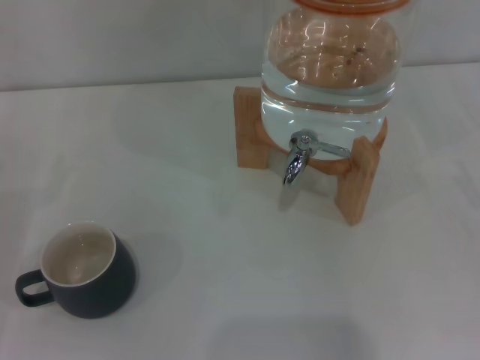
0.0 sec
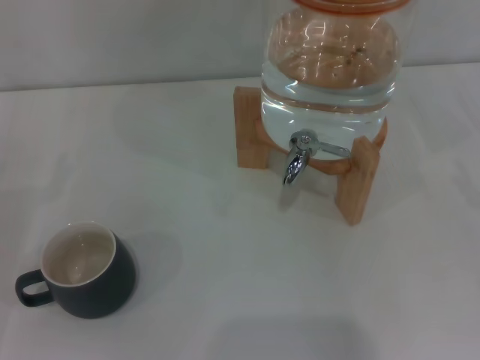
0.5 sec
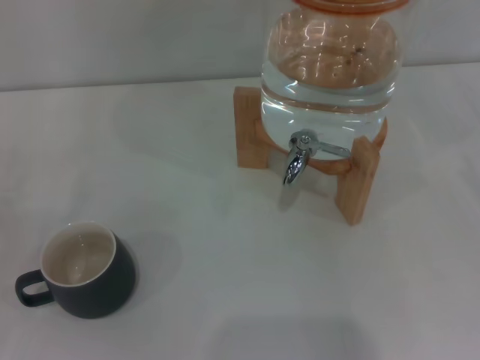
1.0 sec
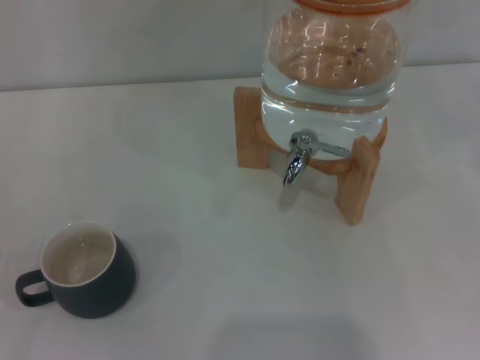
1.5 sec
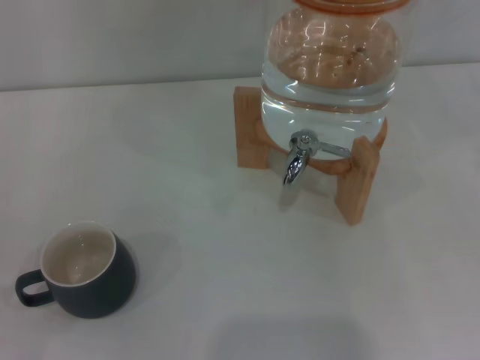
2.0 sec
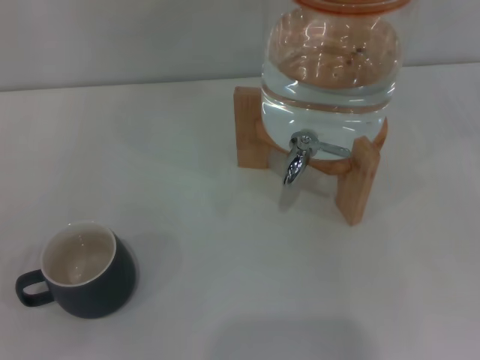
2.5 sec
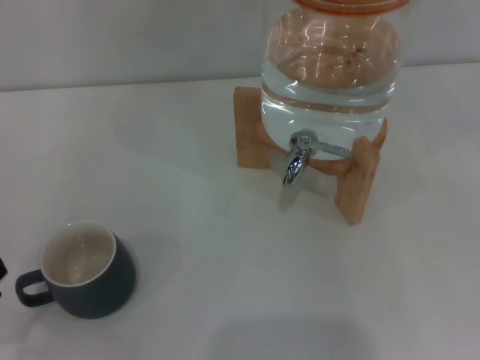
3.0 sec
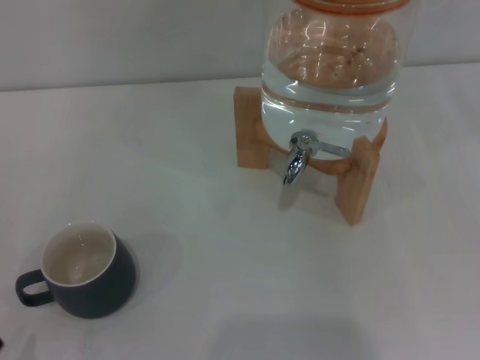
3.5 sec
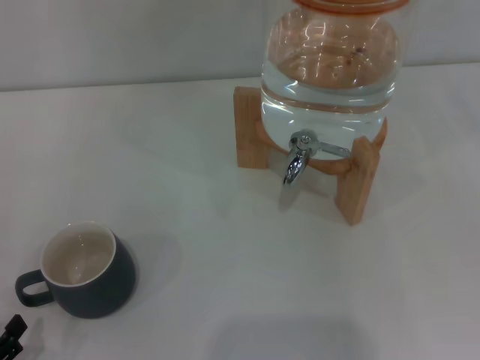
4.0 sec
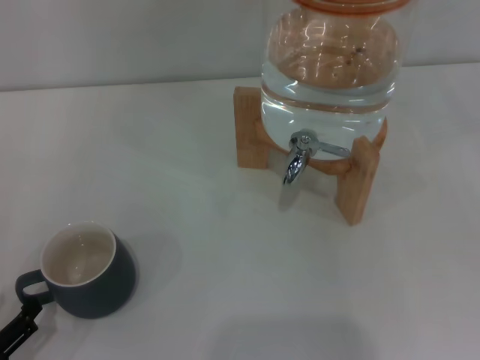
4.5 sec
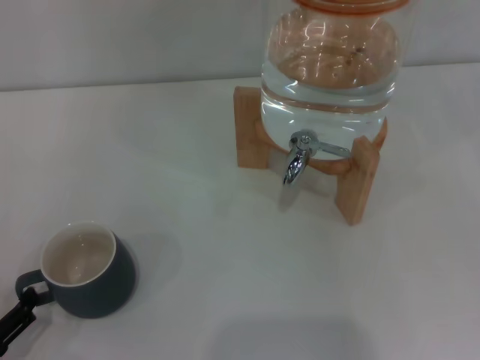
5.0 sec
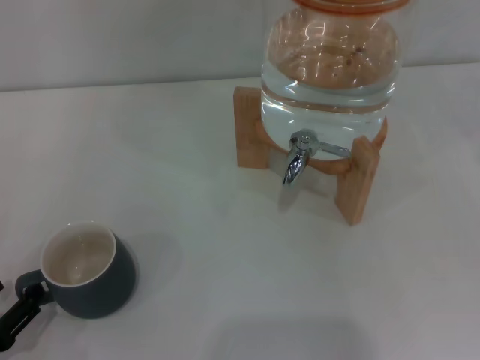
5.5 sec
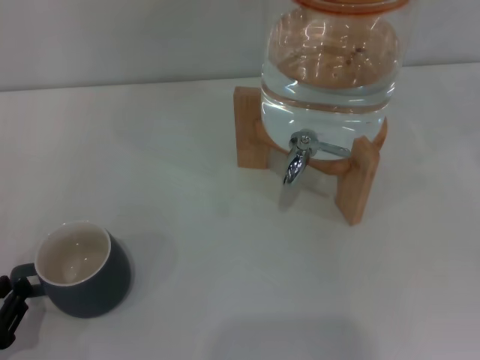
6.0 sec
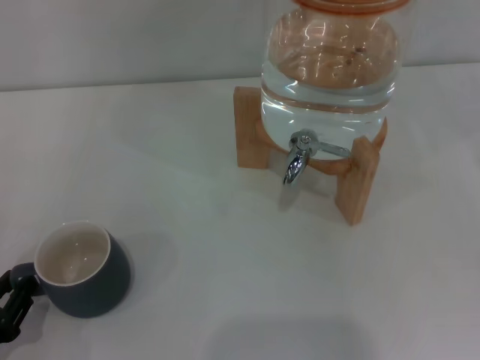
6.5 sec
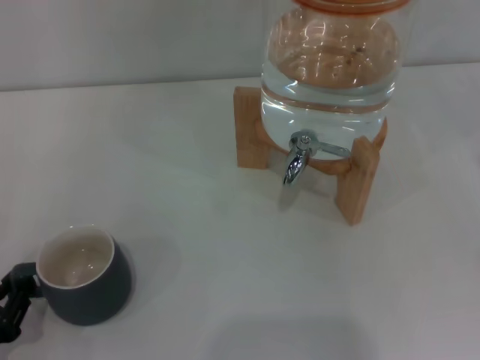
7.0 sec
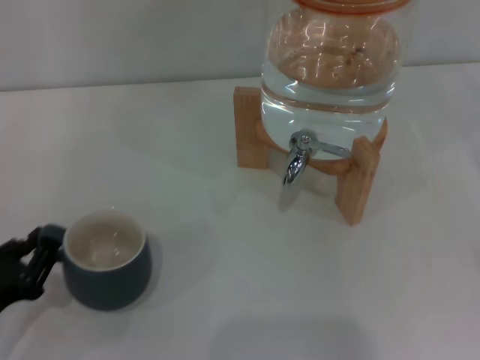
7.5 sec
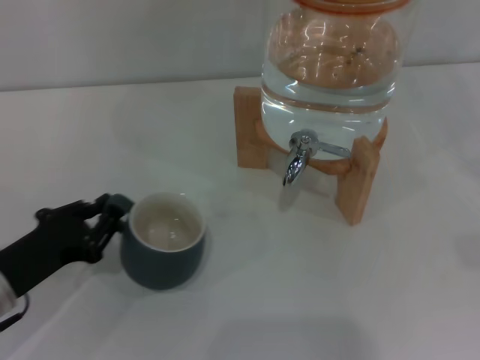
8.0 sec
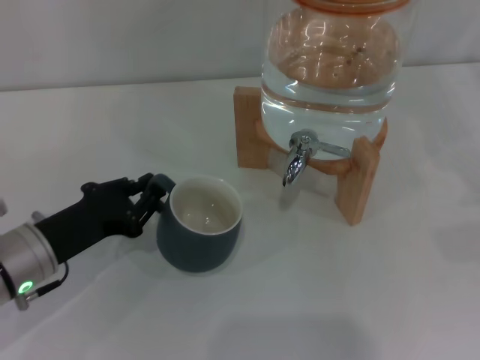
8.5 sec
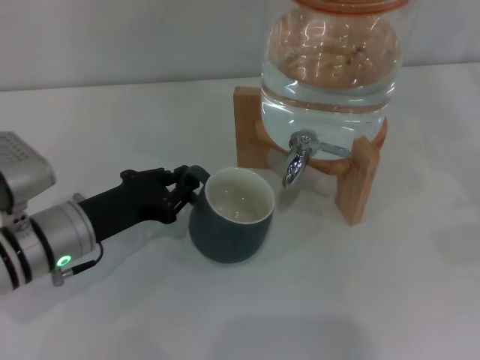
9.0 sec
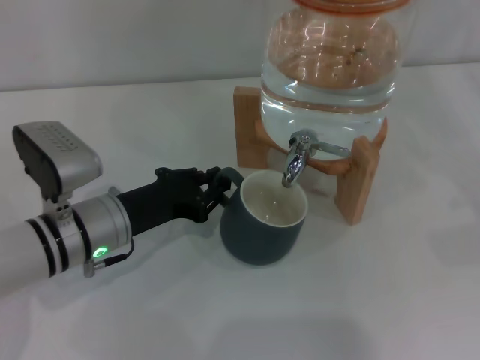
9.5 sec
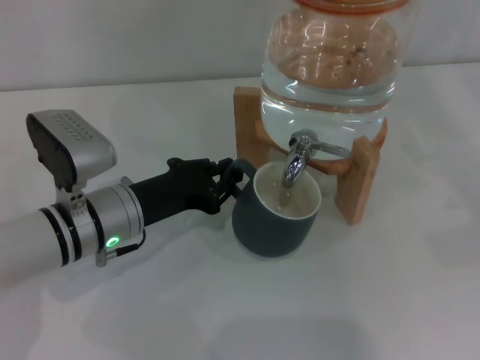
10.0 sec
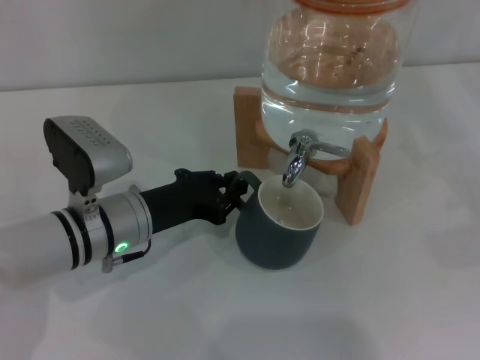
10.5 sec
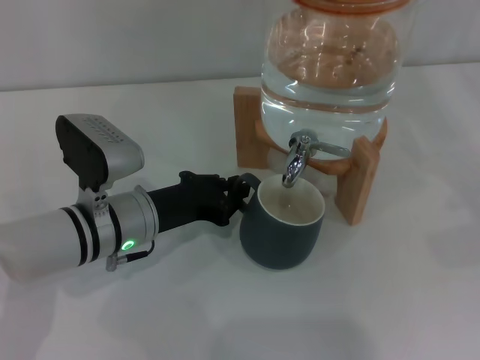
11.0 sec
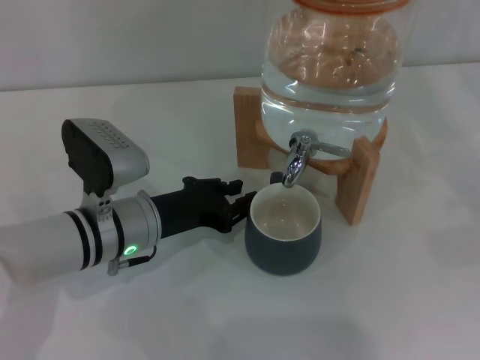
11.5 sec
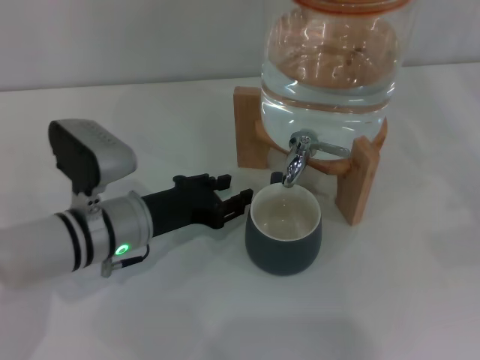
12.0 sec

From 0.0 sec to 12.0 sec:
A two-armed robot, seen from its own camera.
Task of the whole recording: the left gripper pick up the black cup and place it horizontally under the faucet, the right gripper turn on the faucet to fill the cup, and then turn off the faucet.
Step, from 0.0 sec to 12.0 sec: Move the cup beneath the water dispenser nozzle with the left gripper.
From 2.0 sec to 4.0 sec: The left gripper heads downward and to the right, covering some 10 cm.
From 4.0 sec to 6.0 sec: The left gripper closes its fingers.
From 6.0 sec to 8.0 sec: The left gripper goes some 10 cm forward and to the right, and closes up.
From 8.0 sec to 10.0 sec: The left gripper heads to the right and forward, covering some 15 cm.
From 10.0 sec to 12.0 sec: The left gripper opens up.

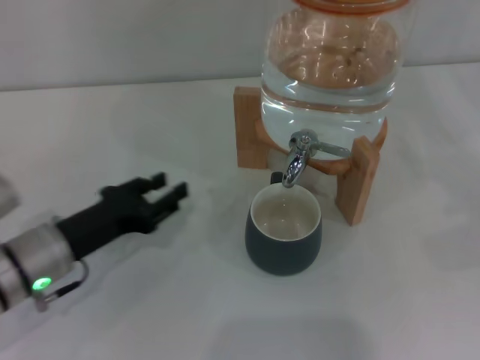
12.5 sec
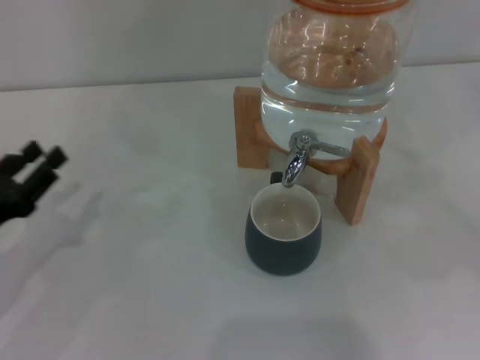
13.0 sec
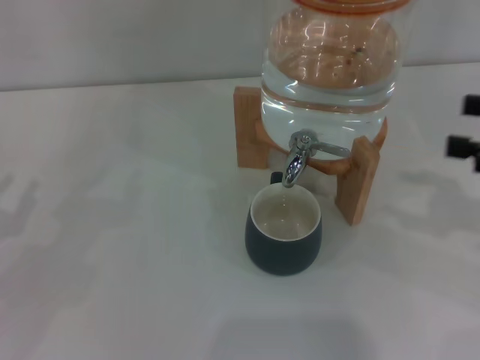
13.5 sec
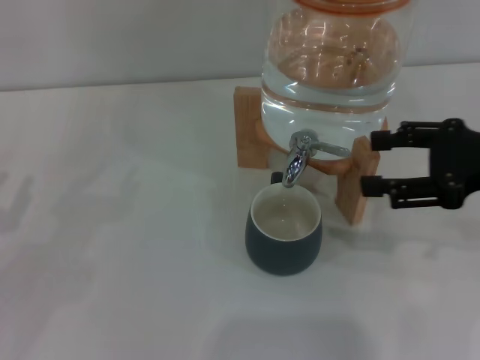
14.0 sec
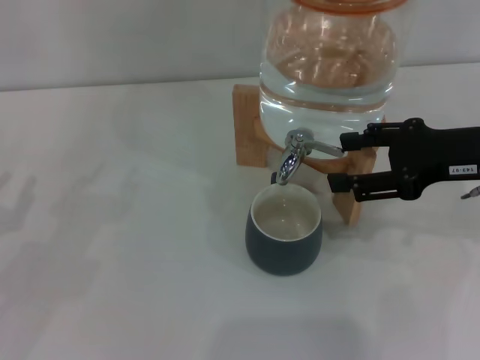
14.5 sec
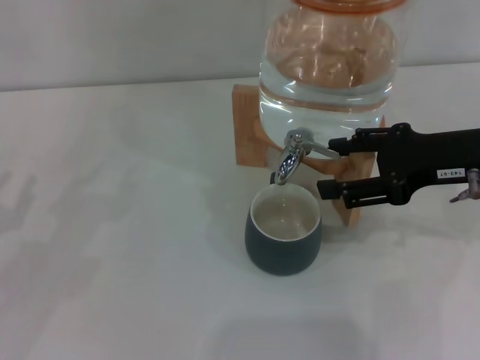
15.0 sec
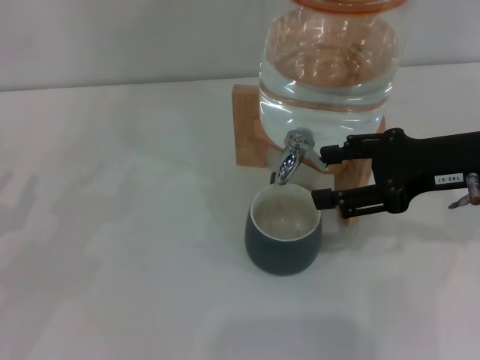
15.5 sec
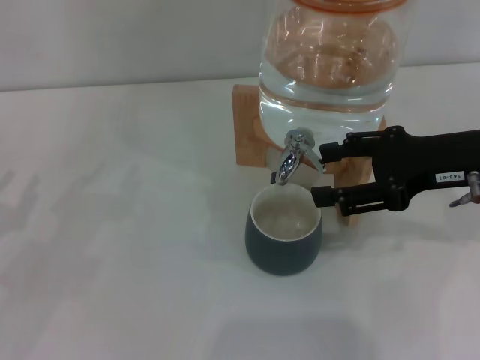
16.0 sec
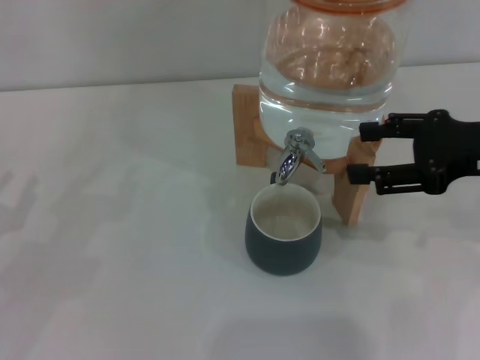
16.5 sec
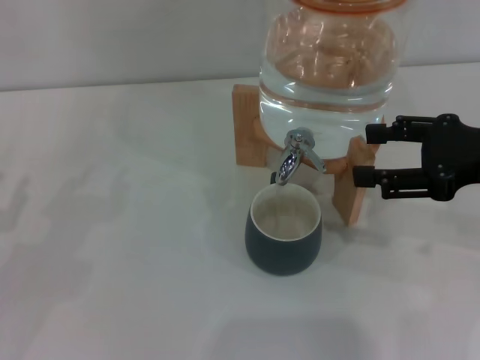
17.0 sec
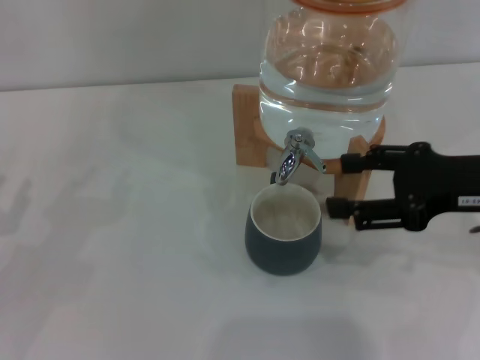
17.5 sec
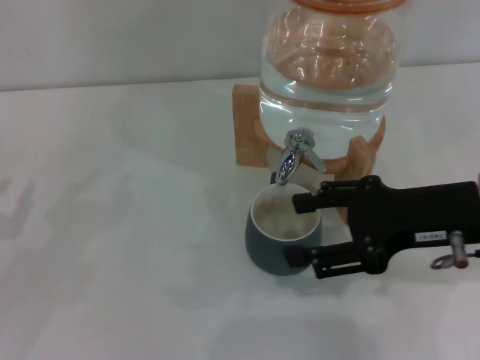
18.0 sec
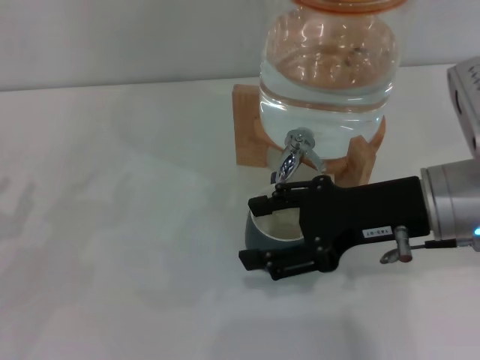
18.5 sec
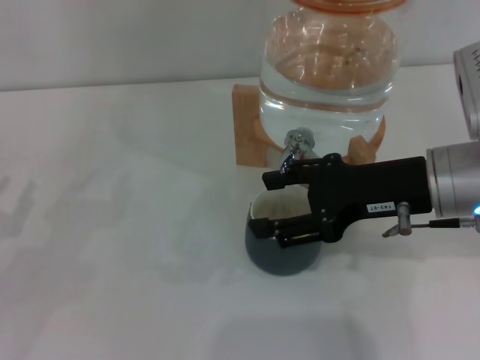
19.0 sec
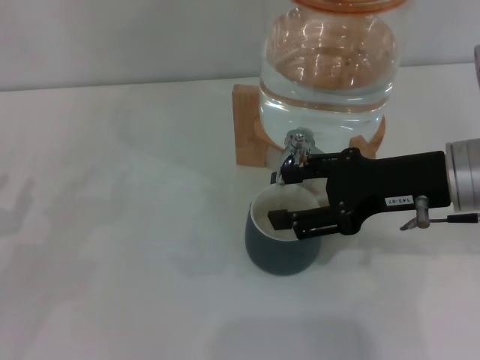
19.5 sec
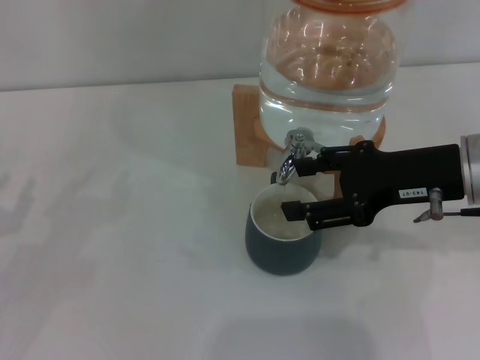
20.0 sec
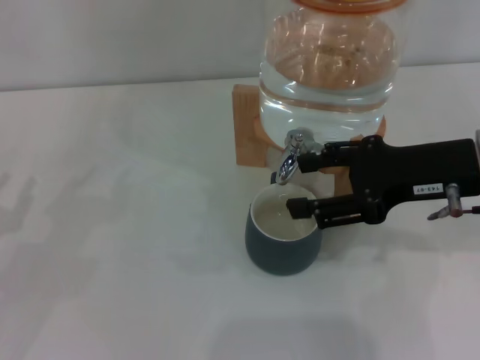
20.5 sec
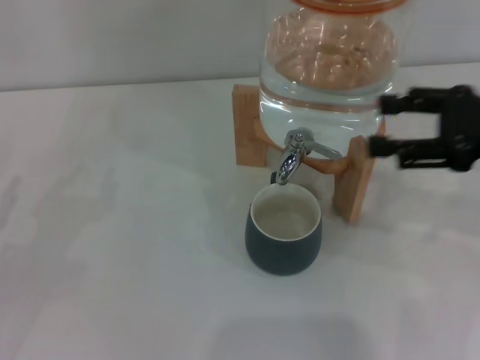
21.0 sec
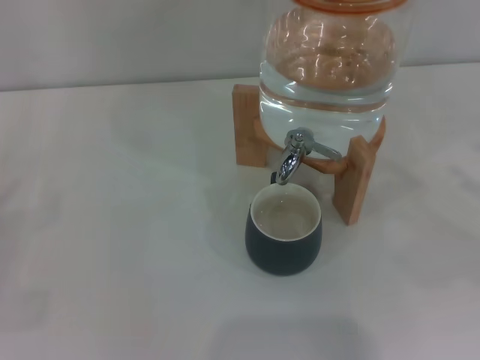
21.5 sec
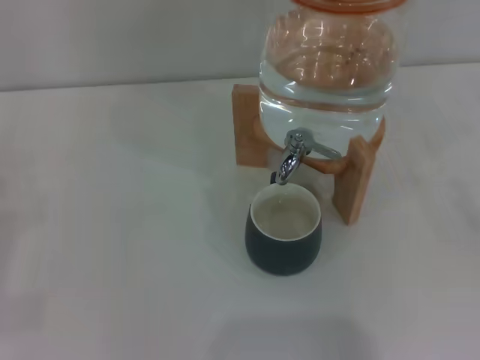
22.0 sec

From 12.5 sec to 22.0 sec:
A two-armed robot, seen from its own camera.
Task of the whole recording: the left gripper pick up the black cup and place it horizontally under the faucet, the right gripper turn on the faucet to fill the cup, and then turn off the faucet.
Step, from 12.5 sec to 16.0 sec: Open the dispenser valve and fill the cup with water with the right gripper.
Step, from 16.5 sec to 20.5 sec: Close the dispenser valve with the right gripper.
From 12.5 sec to 14.5 sec: Both grippers move to the left, about 15 cm.
From 14.5 sec to 16.5 sec: The grippers make only small movements.
From 16.5 sec to 18.0 sec: The right gripper heads to the left, covering some 5 cm.
From 18.0 sec to 20.0 sec: The grippers make only small movements.
From 20.0 sec to 22.0 sec: The left gripper is displaced to the left by some 5 cm; the right gripper shifts some 25 cm to the right, backward and downward.
